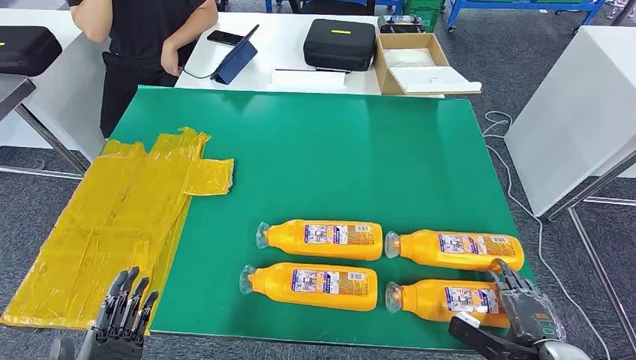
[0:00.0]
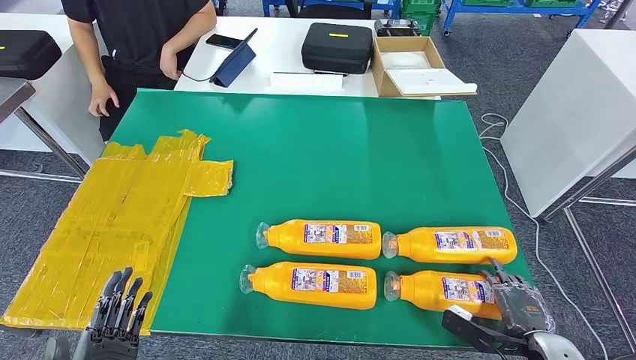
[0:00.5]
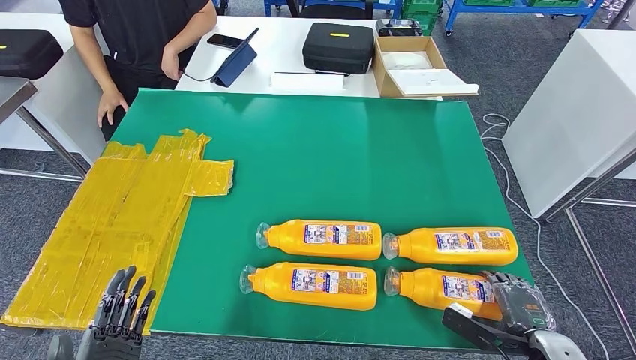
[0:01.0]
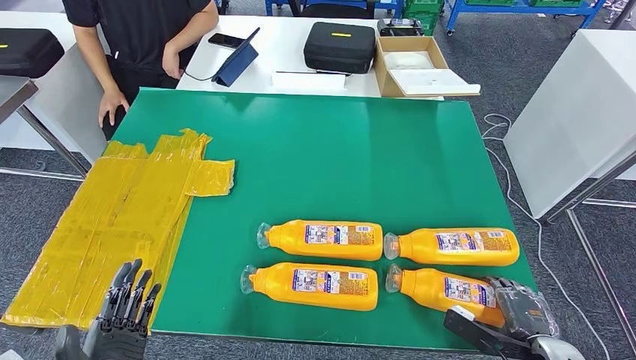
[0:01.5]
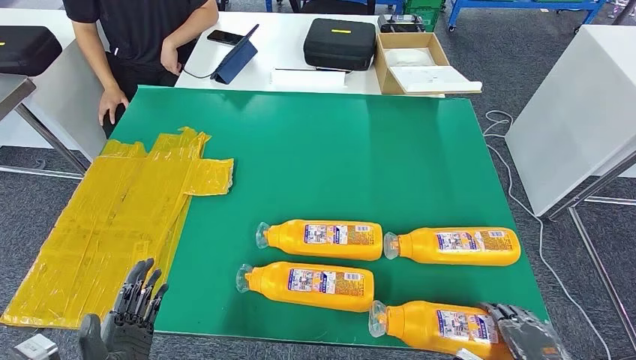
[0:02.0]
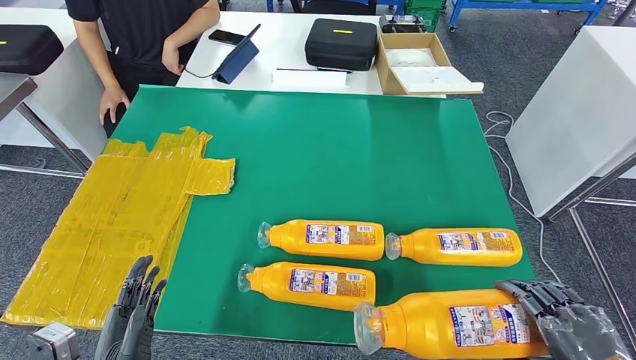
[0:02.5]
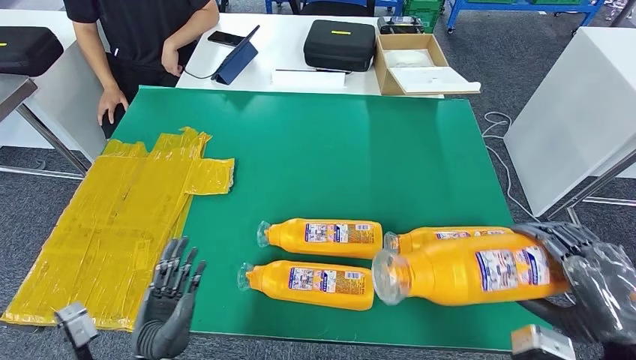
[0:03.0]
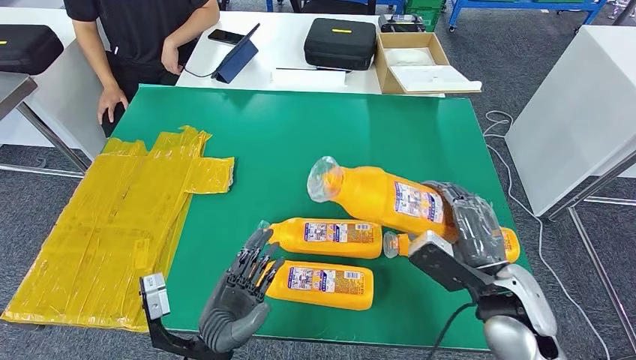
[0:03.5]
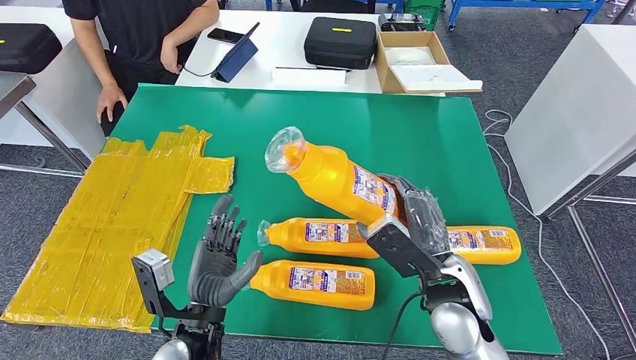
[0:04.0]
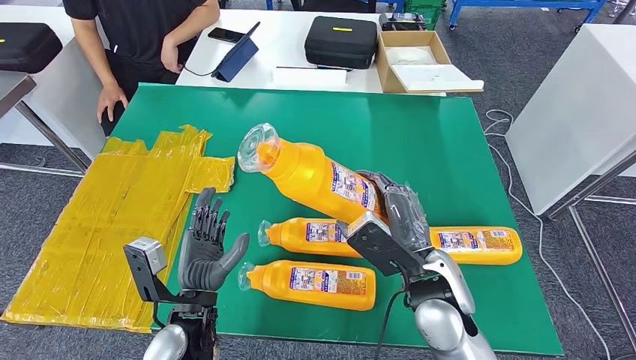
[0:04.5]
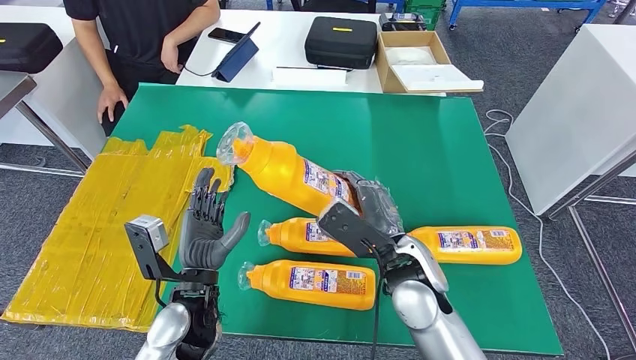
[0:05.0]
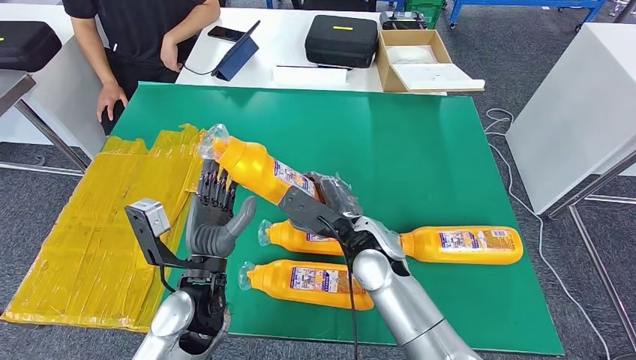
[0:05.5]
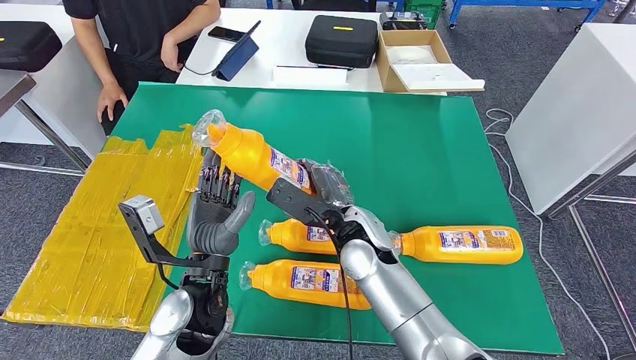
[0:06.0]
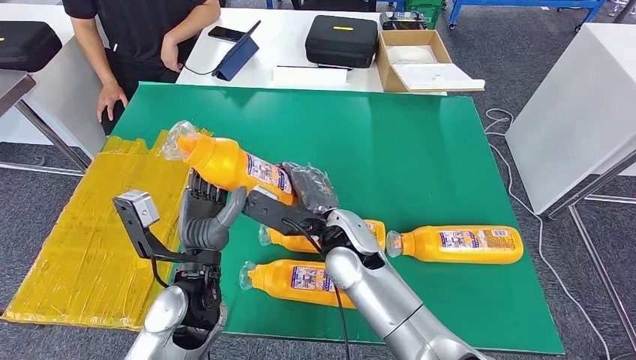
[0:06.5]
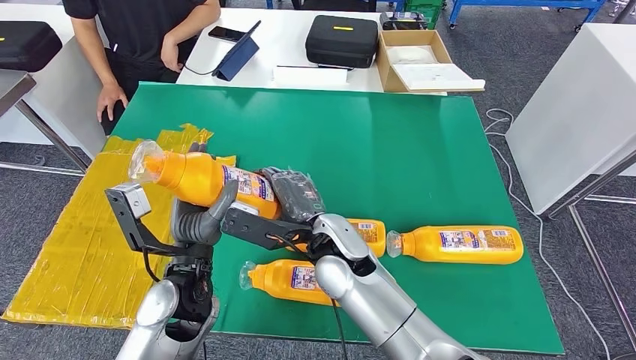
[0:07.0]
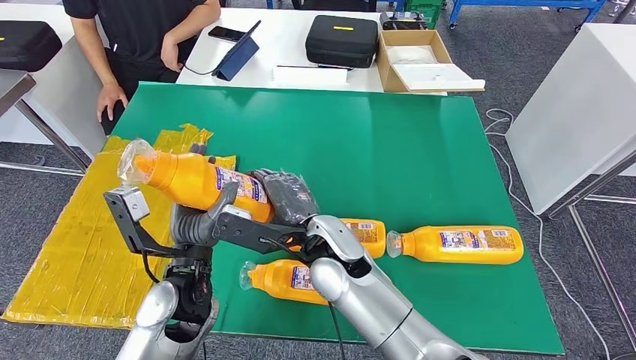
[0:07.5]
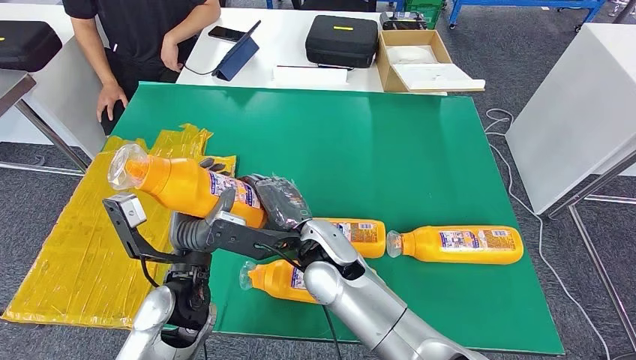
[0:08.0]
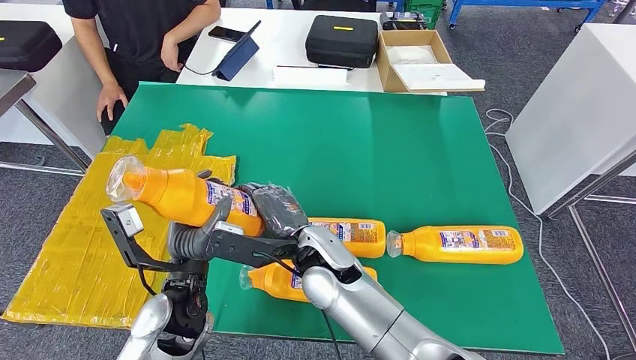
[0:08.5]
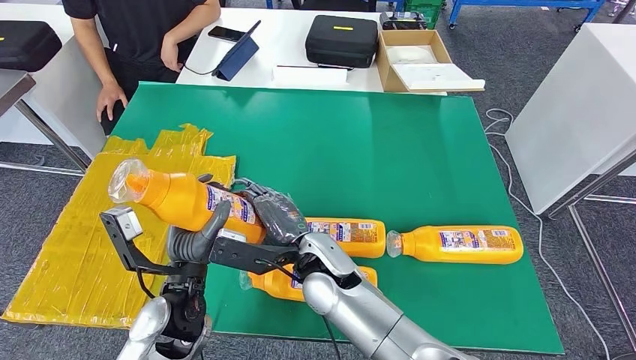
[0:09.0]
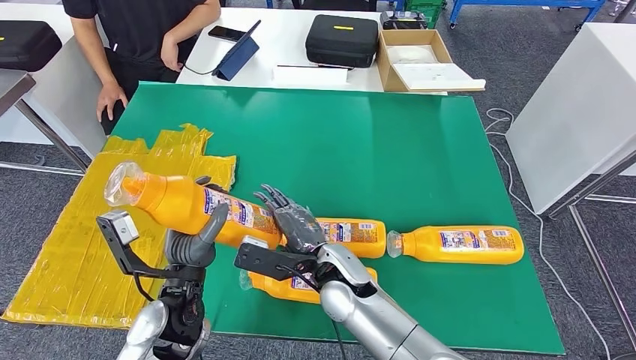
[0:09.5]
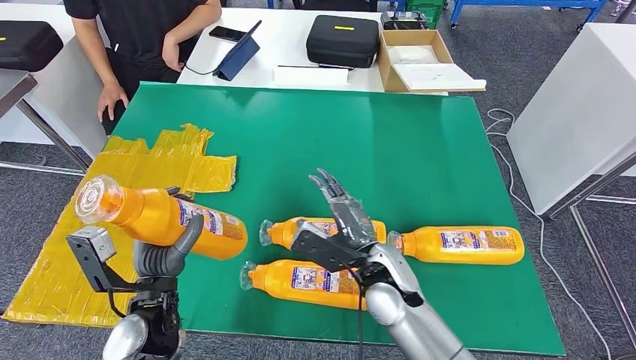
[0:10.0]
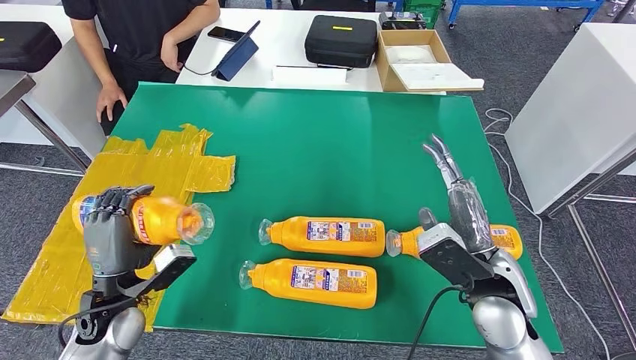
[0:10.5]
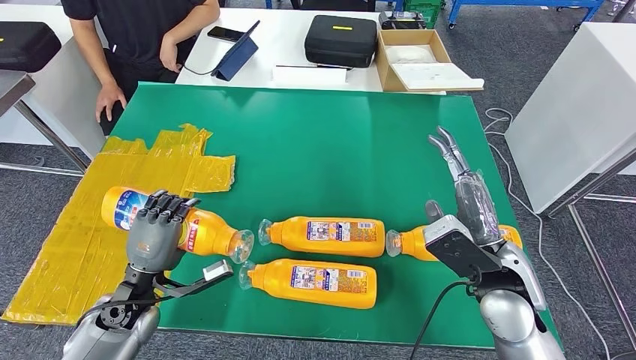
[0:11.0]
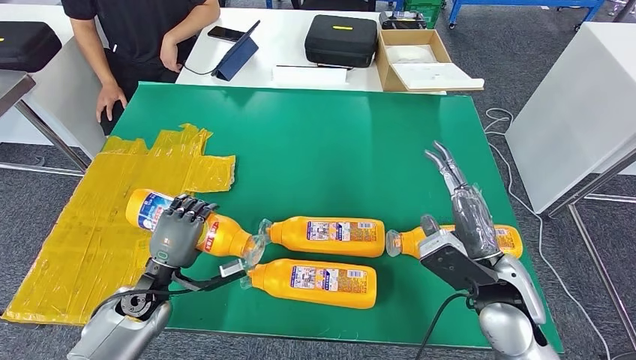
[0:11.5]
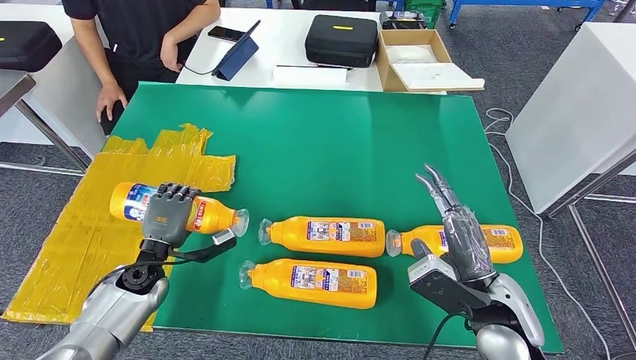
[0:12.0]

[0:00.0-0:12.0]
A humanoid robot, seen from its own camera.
Step, 0:00.0 to 0:08.0: Take the fast-moving consumer goods bottle from the table.
0:06.0 to 0:08.0: The right hand moves to the left, roughly 5 cm.
0:08.0 to 0:10.0: The right hand goes roughly 10 cm to the right and downward. The left hand moves to the left, approximately 5 cm.

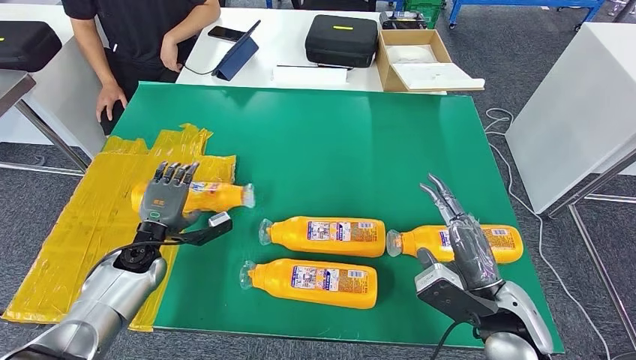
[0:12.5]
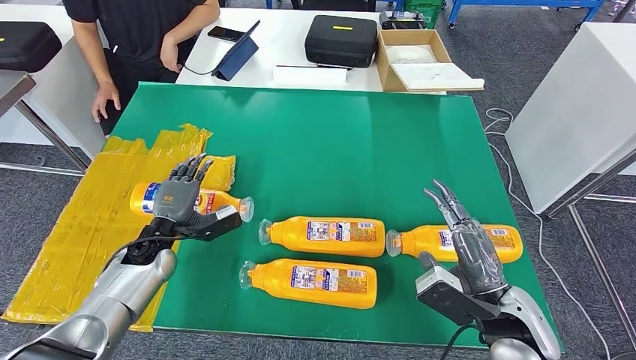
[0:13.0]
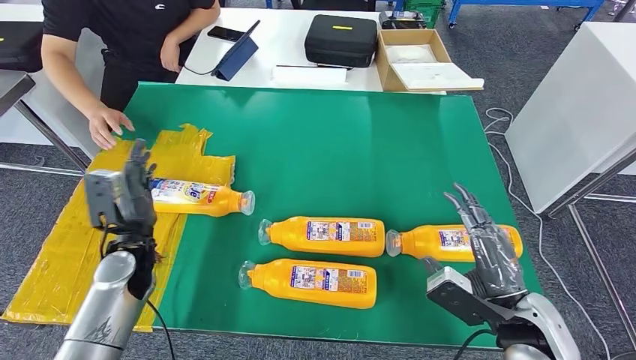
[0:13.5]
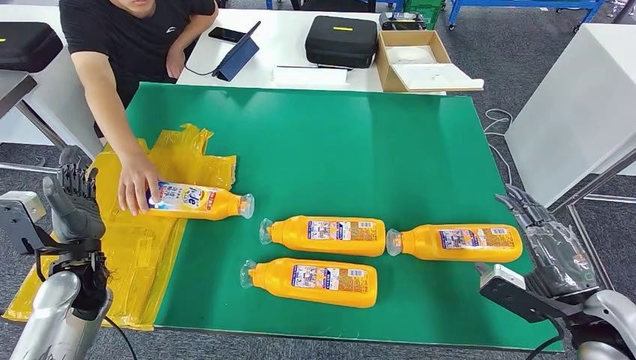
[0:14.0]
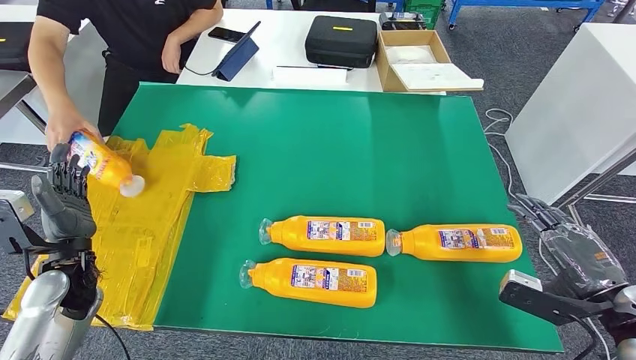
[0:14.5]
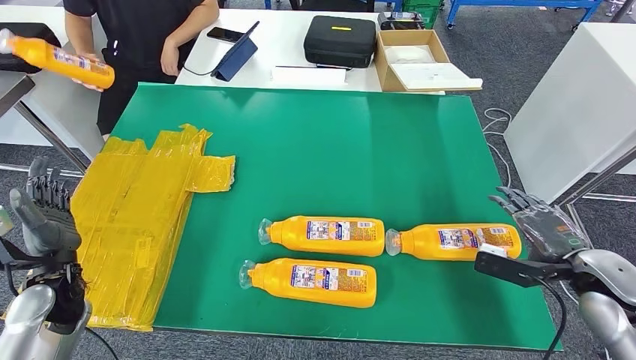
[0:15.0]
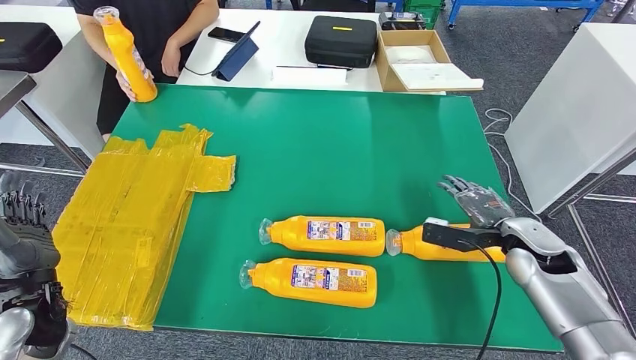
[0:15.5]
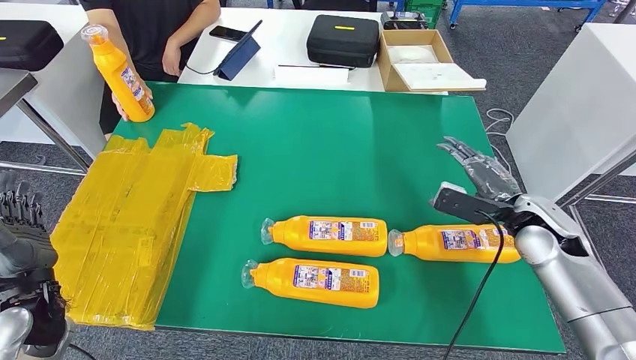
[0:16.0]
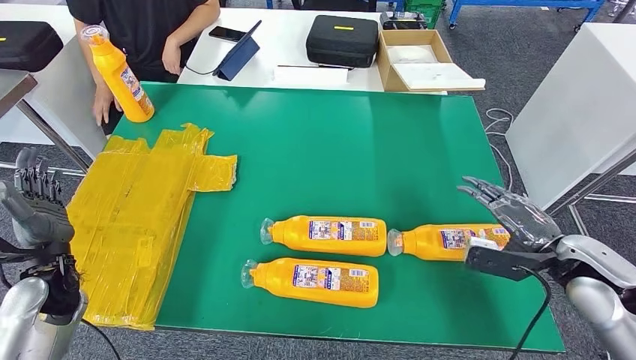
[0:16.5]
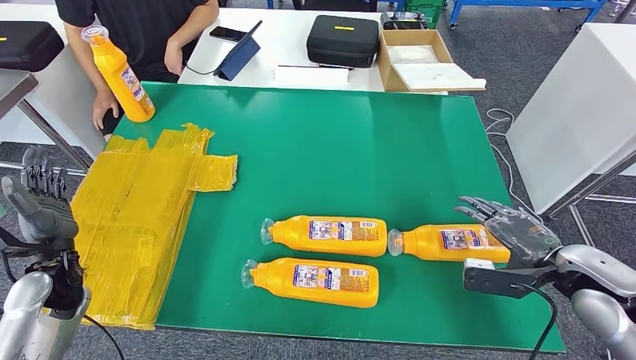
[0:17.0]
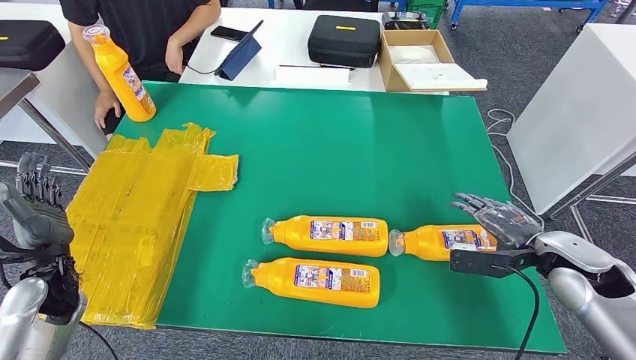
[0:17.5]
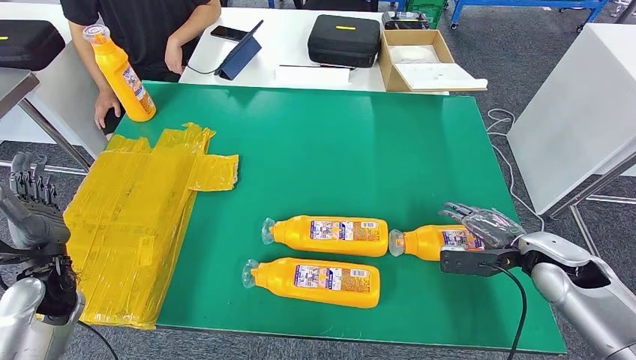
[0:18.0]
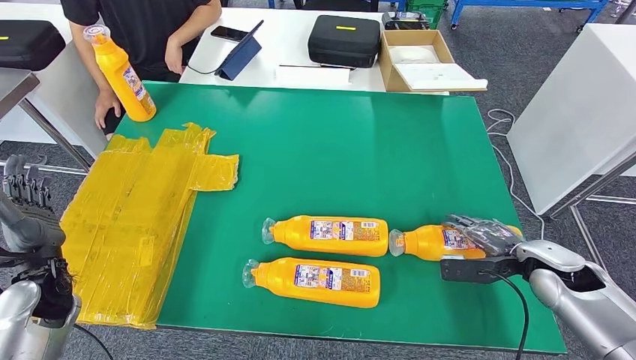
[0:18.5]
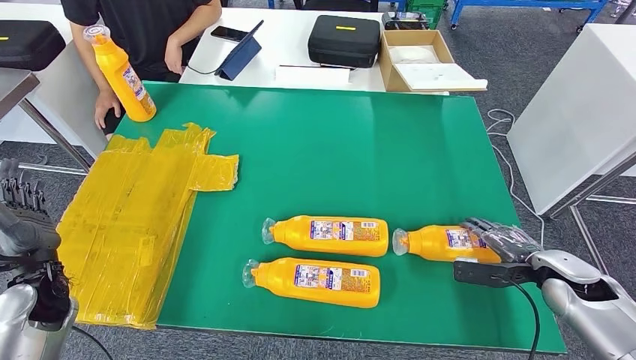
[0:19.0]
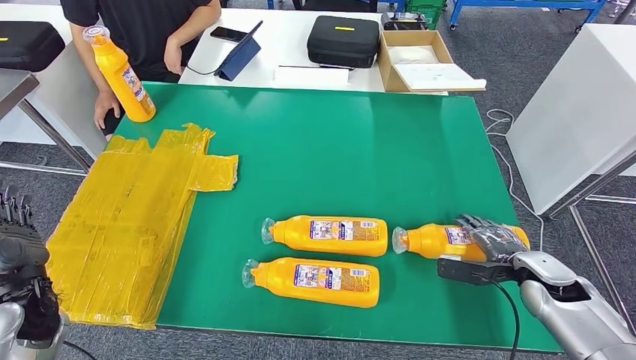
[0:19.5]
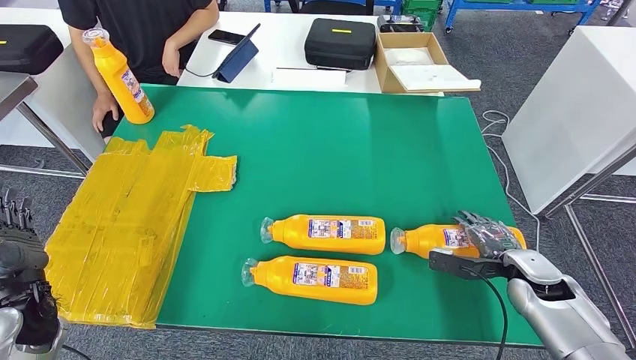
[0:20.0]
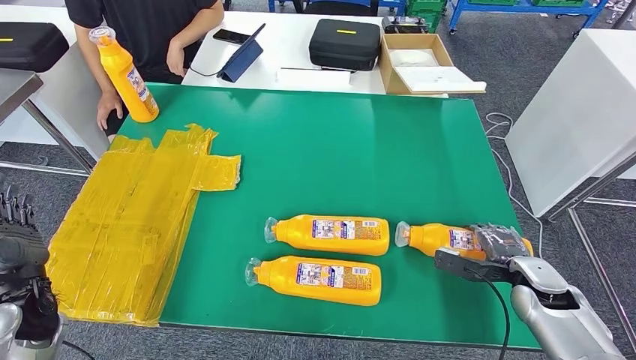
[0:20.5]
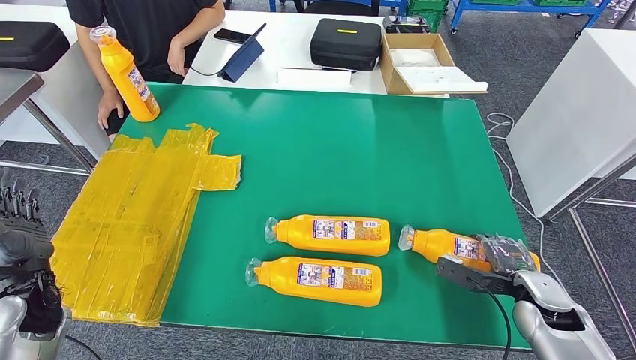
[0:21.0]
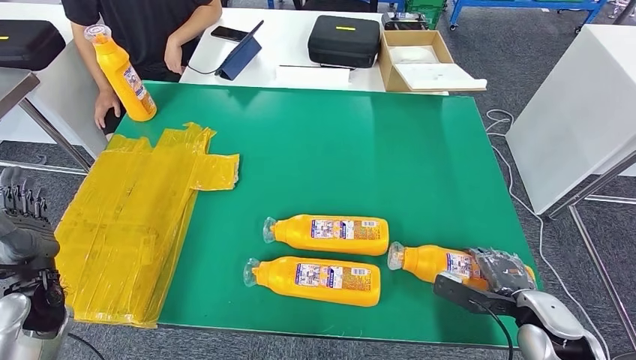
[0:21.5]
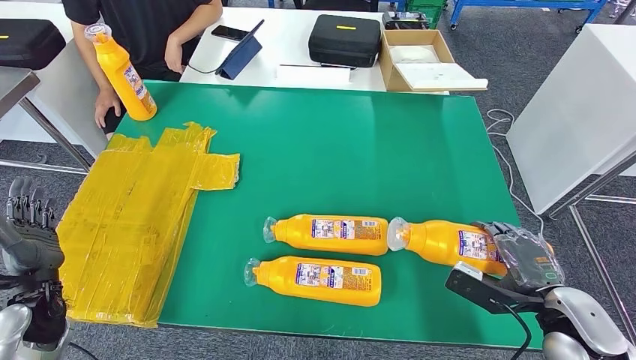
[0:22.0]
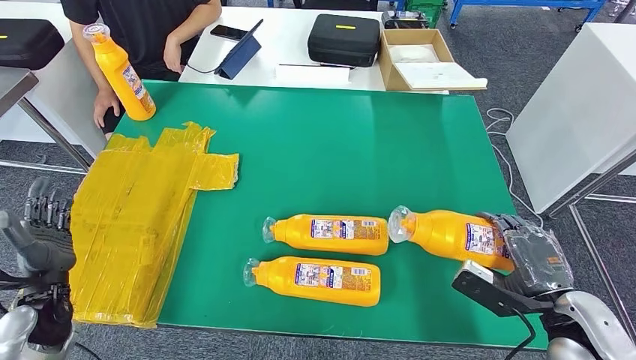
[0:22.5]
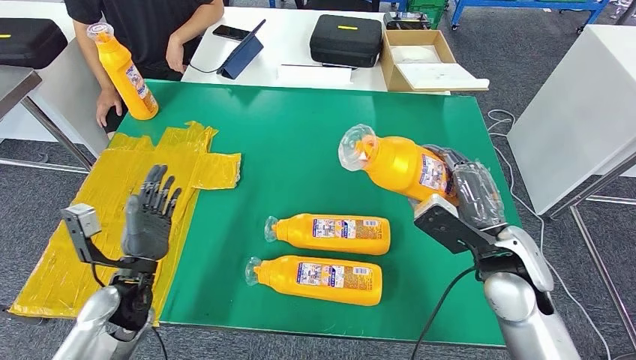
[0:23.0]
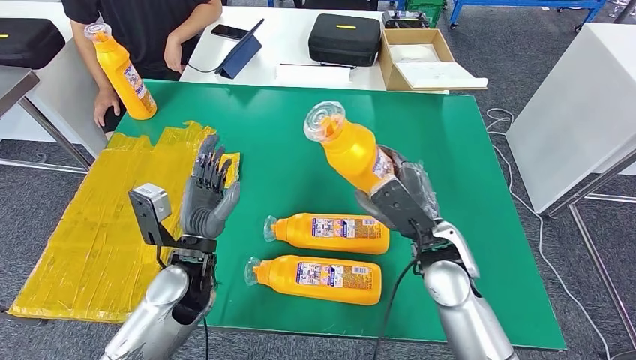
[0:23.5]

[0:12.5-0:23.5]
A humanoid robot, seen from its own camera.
Step, 0:14.0 to 0:23.0: Pick up the fast-moving consumer goods bottle from the table.
0:16.0 to 0:18.0: The right hand shifts by some 5 cm.
